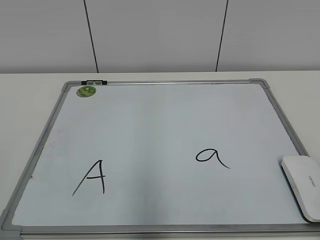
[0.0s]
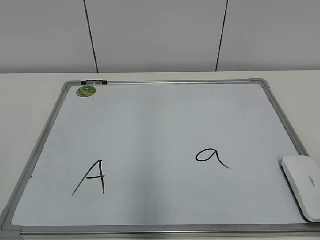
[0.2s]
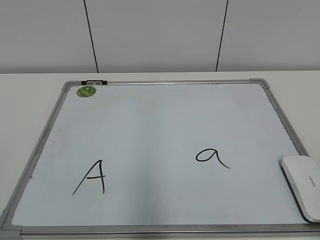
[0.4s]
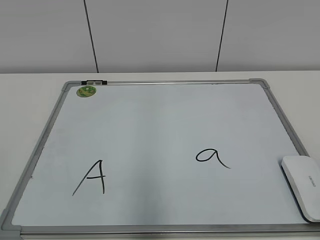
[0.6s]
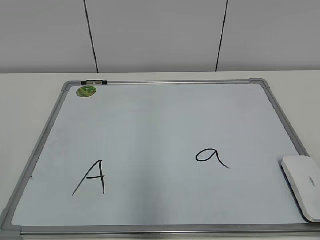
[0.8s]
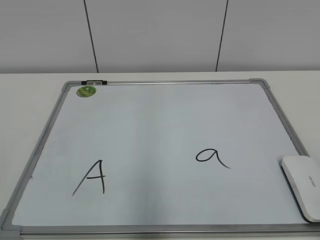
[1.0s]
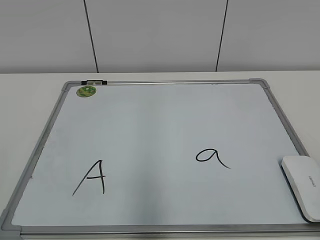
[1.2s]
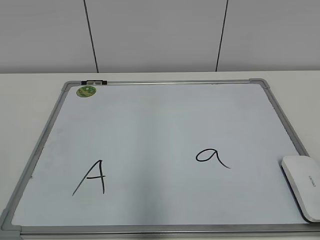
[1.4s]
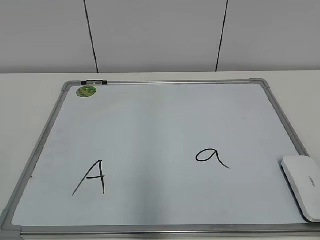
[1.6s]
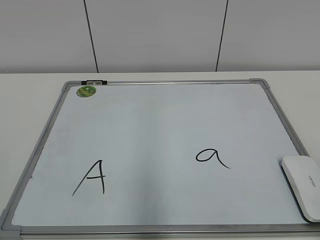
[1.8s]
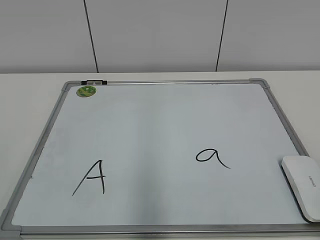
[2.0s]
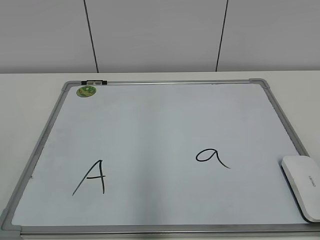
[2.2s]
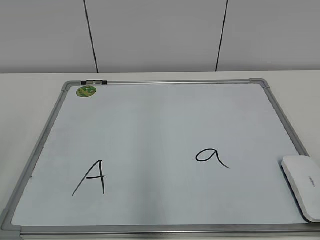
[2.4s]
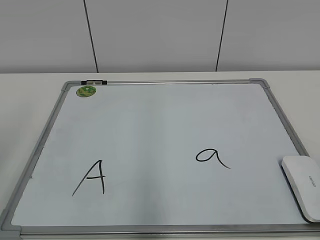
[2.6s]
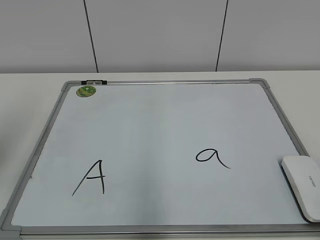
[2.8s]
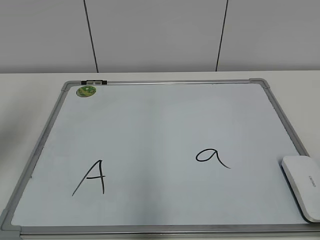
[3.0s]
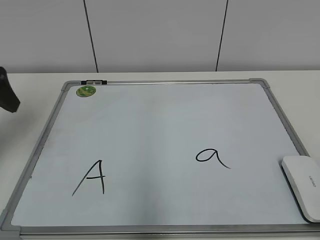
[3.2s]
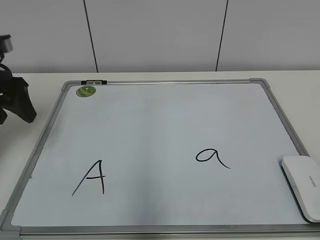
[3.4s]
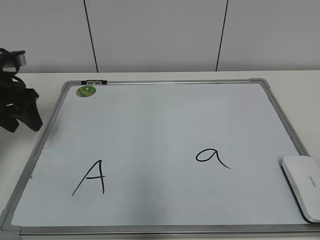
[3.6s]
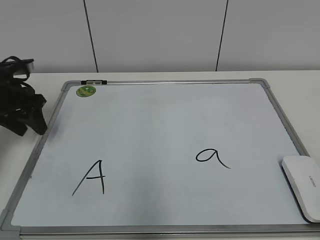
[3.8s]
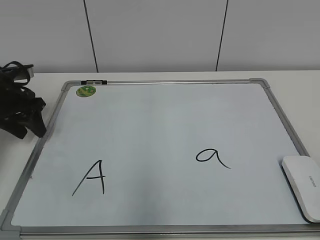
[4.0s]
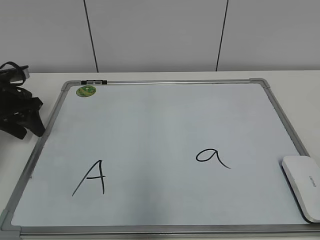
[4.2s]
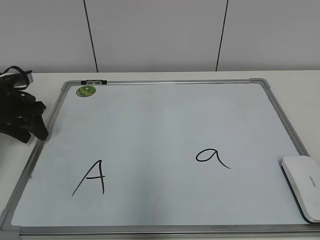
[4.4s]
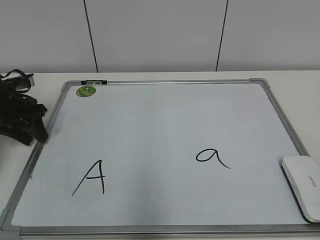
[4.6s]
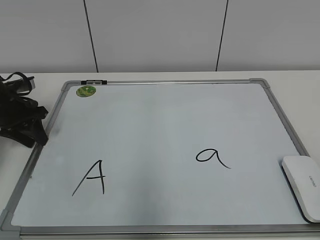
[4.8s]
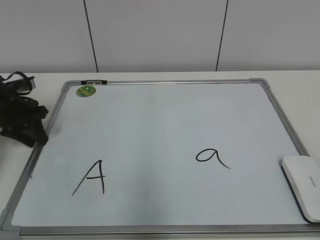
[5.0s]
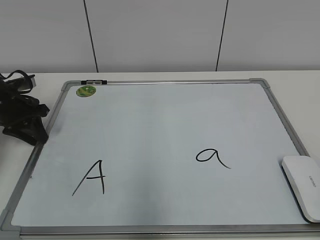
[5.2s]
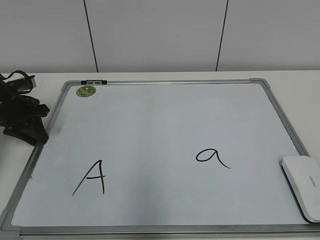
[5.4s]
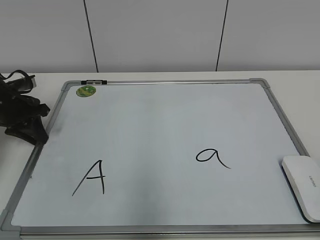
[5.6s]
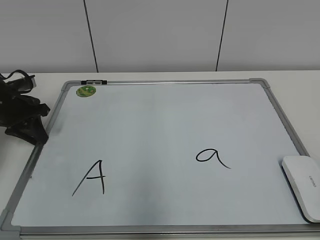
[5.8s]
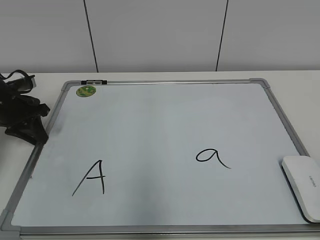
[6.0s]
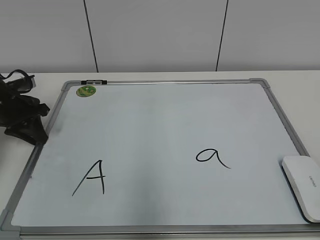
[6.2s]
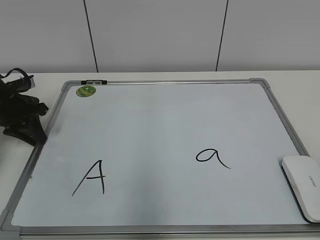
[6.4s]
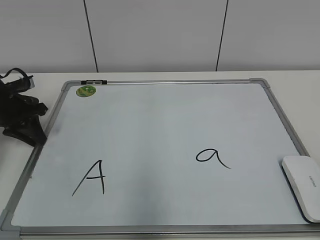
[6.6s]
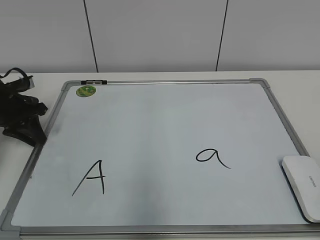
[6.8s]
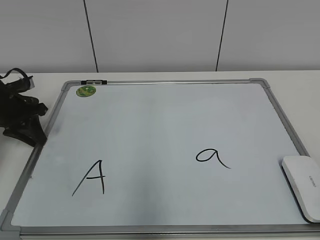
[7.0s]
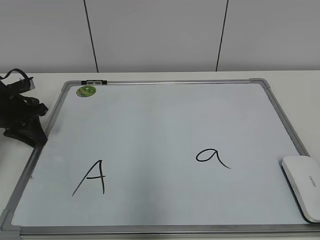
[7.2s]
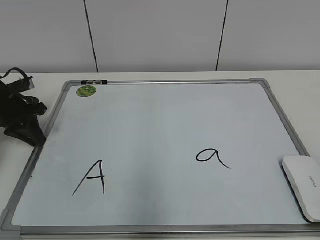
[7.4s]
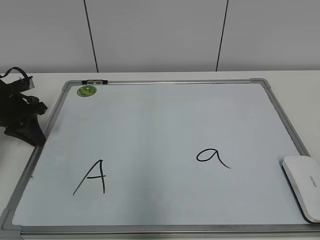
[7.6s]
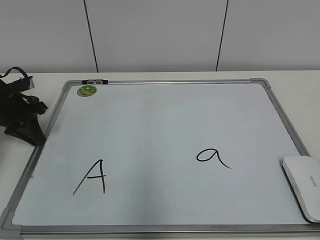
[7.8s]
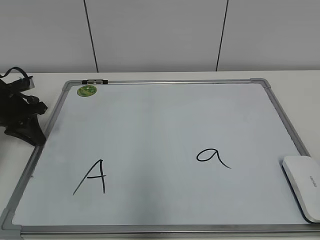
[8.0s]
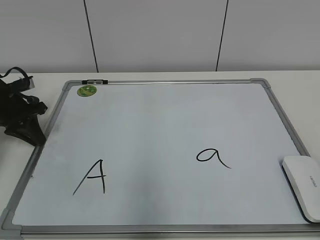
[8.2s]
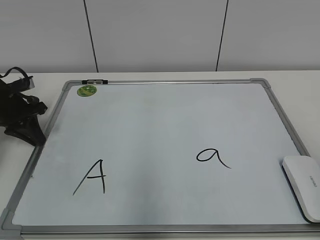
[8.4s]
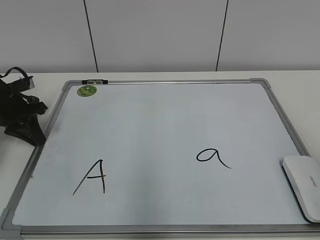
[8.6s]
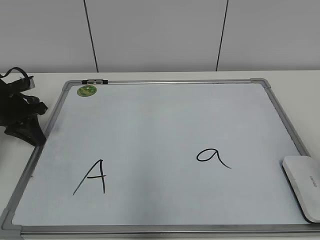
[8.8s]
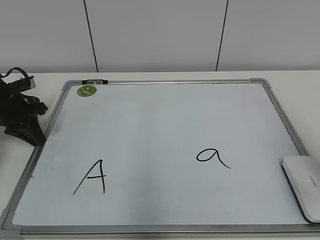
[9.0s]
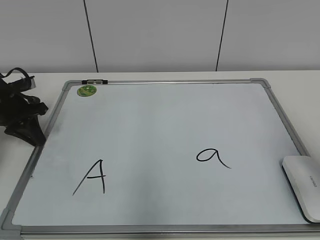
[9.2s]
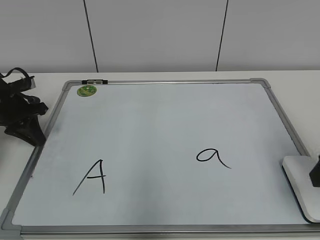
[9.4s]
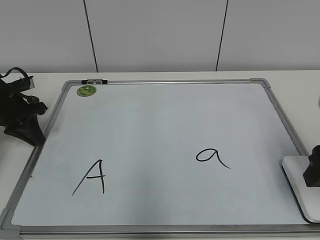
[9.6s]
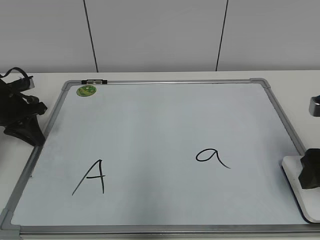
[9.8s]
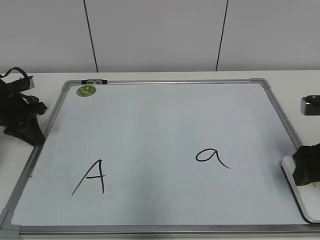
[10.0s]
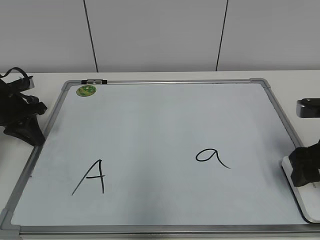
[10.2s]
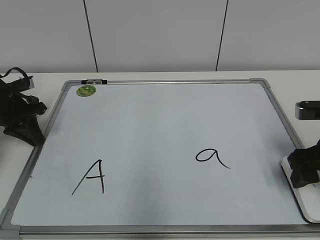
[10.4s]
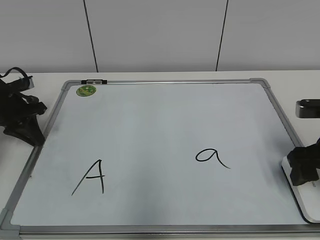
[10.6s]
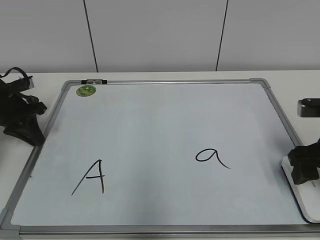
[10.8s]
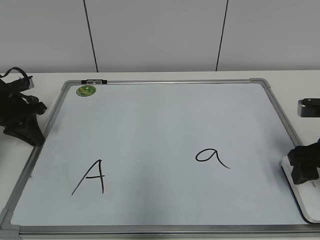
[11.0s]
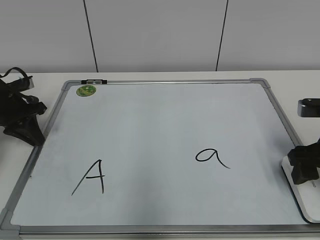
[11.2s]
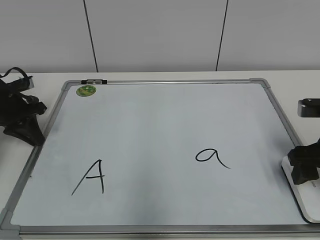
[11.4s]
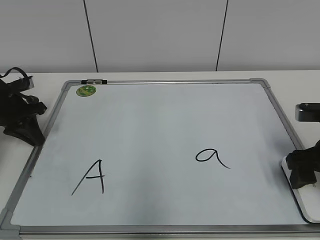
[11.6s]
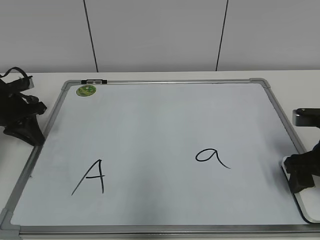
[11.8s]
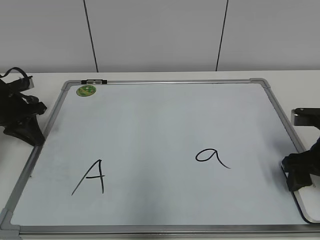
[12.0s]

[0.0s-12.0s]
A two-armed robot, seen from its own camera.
Task of the whole recording: pick up the eraser on the blackboard and erase the letter "a".
Step, 0.0s to 6.0s: Hold the drawing board steady with your left hand.
1.6s to 3.0s: The left gripper moves forward, approximately 25 cm, and opens its fingers.
3.0s to 4.4s: The left gripper is displaced forward and downward by about 25 cm, and closes up.
4.4s to 6.0s: The left gripper closes its fingers.
6.0s to 7.6s: Both grippers stay about where they are.
9.0s to 10.4s: The right gripper is displaced forward and downward by some 15 cm.
10.4s to 12.0s: There are only small adjustments of the grippers.

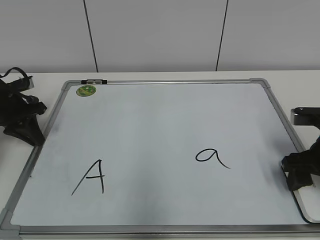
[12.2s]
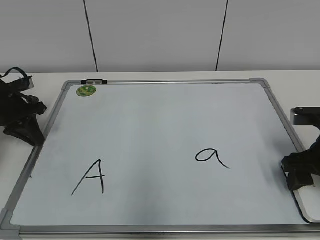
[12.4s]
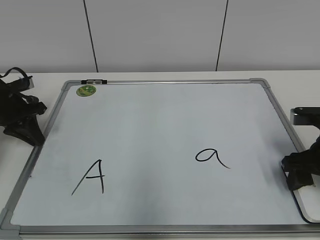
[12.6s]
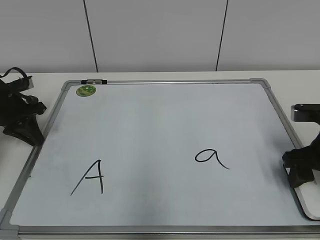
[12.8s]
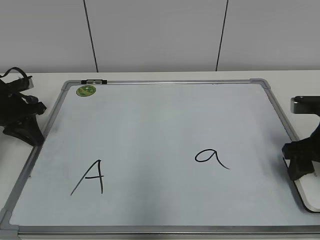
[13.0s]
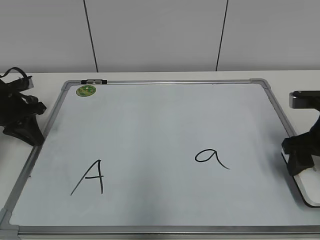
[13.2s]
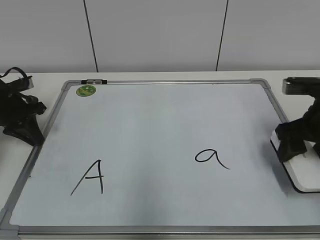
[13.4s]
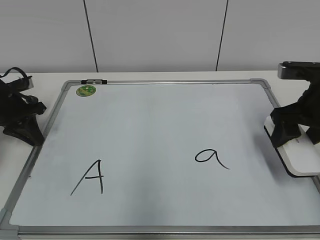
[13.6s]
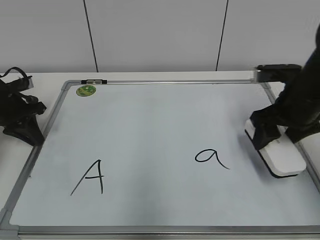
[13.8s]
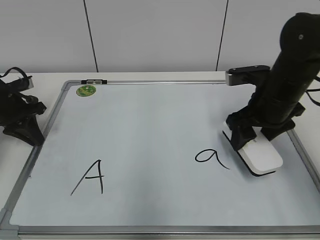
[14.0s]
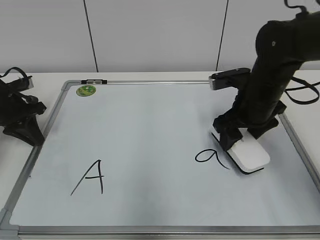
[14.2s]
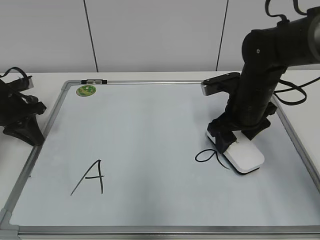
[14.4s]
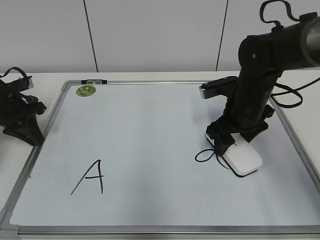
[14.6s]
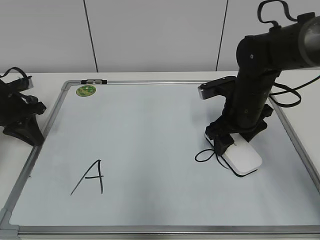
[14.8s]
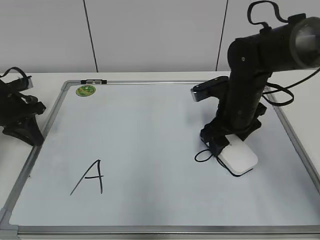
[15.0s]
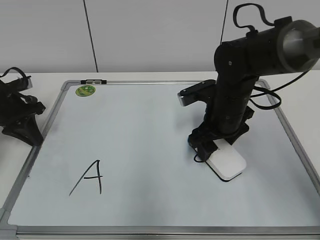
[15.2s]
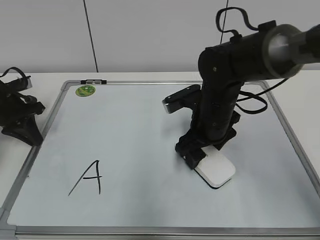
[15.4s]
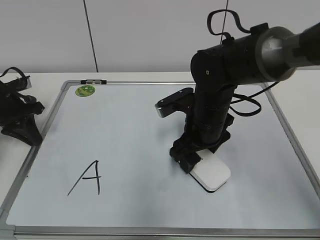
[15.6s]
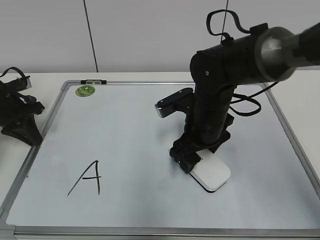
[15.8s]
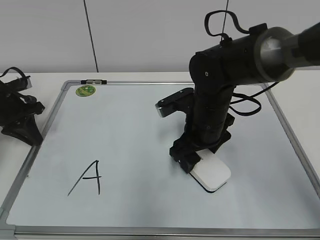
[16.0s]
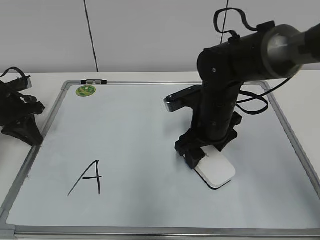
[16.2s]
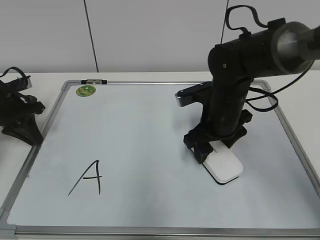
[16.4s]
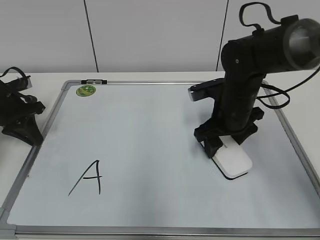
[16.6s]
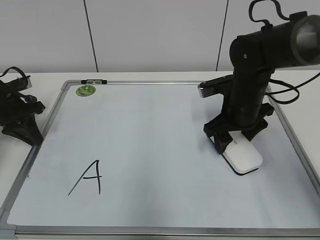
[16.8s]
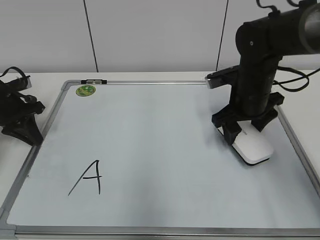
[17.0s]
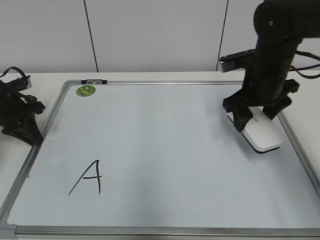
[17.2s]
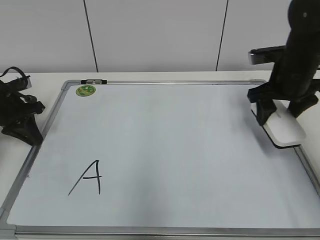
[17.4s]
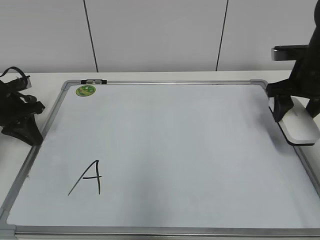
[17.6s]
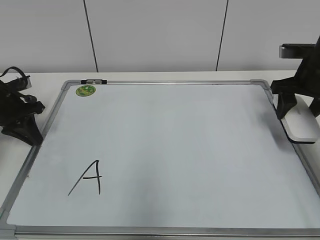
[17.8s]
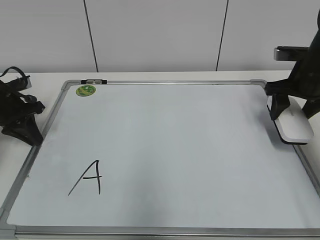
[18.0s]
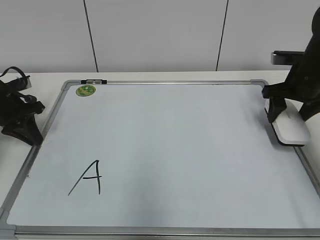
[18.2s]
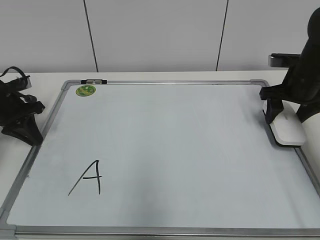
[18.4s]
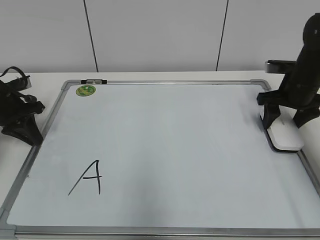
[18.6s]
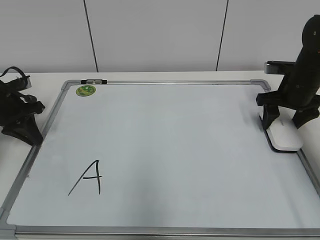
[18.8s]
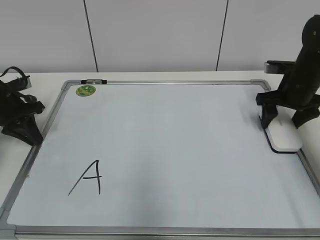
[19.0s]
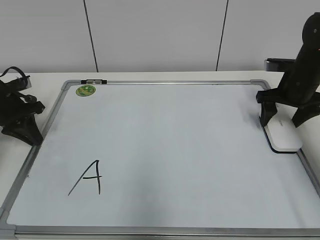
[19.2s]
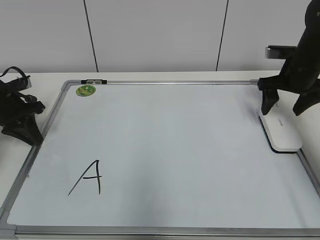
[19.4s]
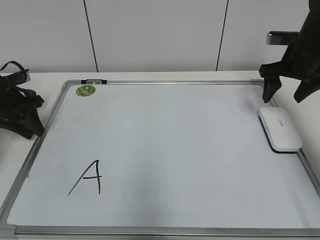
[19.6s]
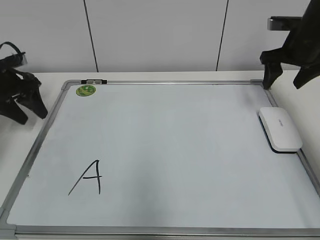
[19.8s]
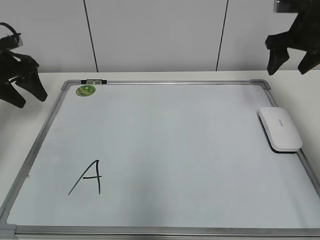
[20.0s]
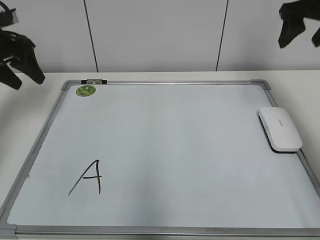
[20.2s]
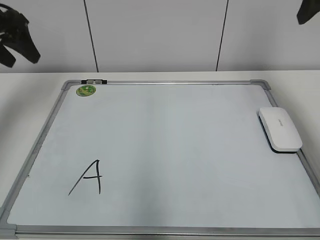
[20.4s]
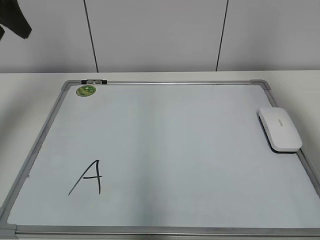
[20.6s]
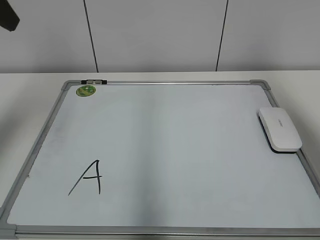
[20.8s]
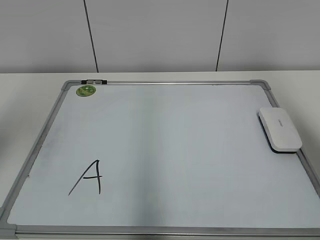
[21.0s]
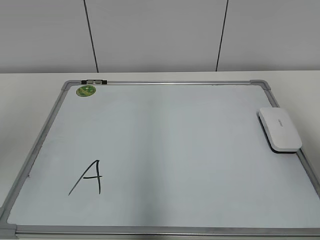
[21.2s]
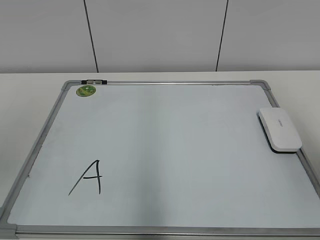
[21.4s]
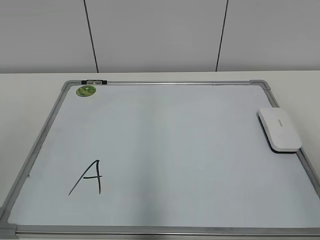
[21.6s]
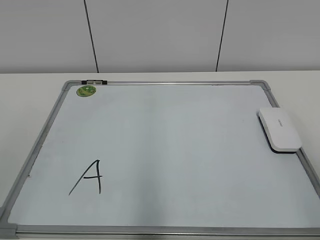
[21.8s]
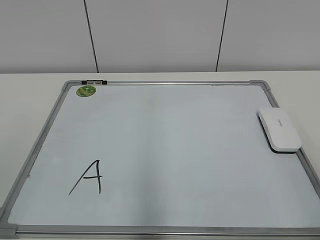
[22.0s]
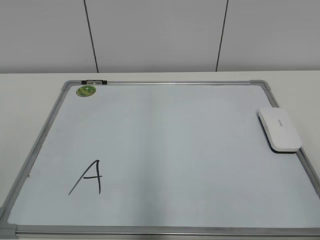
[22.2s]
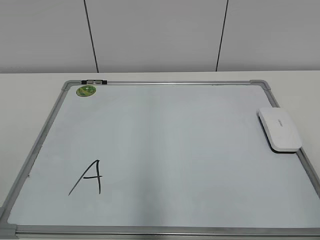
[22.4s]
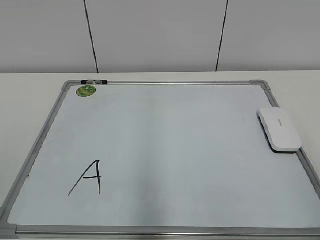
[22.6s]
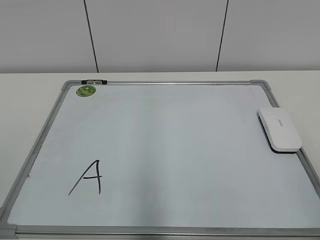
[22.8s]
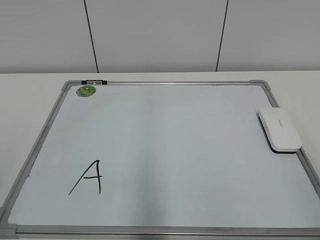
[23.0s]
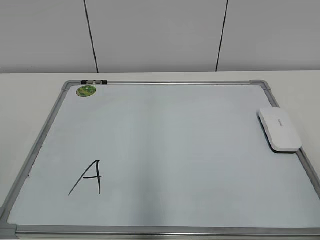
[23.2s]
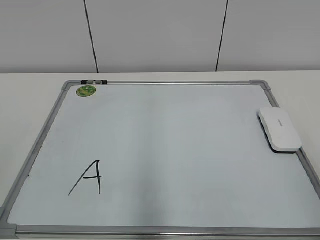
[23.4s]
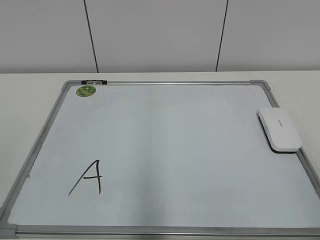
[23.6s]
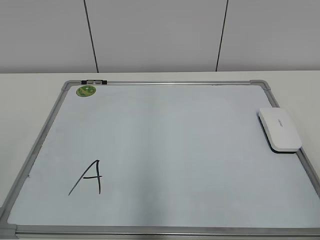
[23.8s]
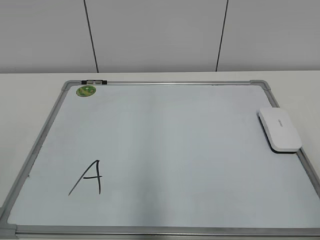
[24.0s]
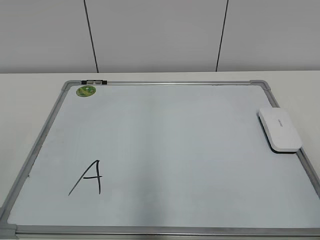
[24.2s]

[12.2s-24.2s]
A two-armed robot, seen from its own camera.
Task of the whole recording: pick up the eraser on the blackboard and erase the letter "a".
Step, 12.6s to 16.6s: Erase the letter a with your right hand.
Step, 16.8s to 19.0s: Put down the eraser with your right hand.
12.2s to 13.8s: The right gripper shifts approximately 10 cm upward and forward, and closes.
13.8s to 15.2s: The right gripper heads to the left and downward, covering some 15 cm.
15.2s to 16.6s: The grippers make only small movements.
16.6s to 18.2s: The right gripper moves to the right, roughly 15 cm.
18.2s to 19.8s: The left gripper opens. Meanwhile the right gripper changes place by roughly 5 cm, and opens up.
19.8s to 21.2s: The right gripper shifts approximately 35 cm backward and upward; the left gripper shifts some 30 cm upward and backward.
21.2s to 22.6s: The grippers both shift backward and downward by approximately 20 cm.
